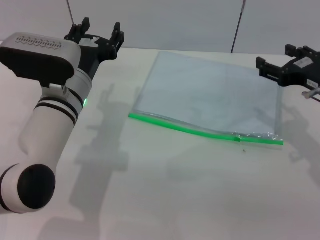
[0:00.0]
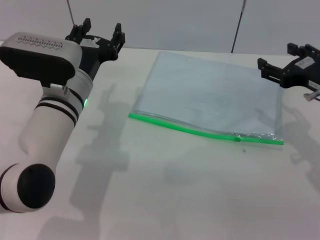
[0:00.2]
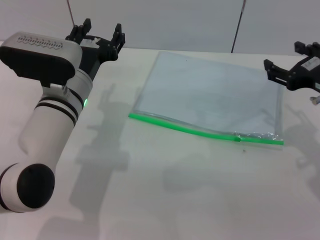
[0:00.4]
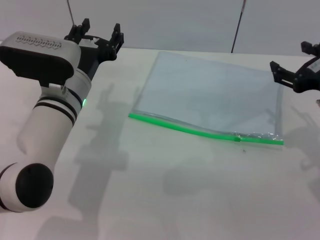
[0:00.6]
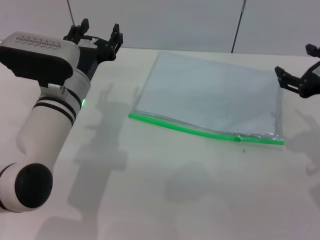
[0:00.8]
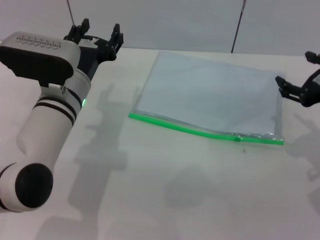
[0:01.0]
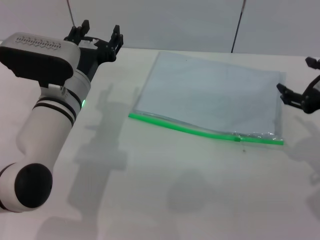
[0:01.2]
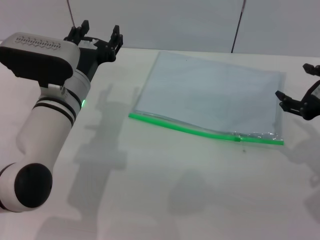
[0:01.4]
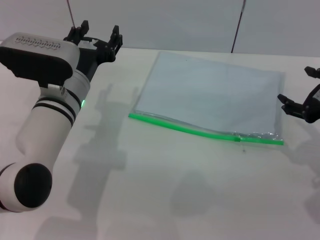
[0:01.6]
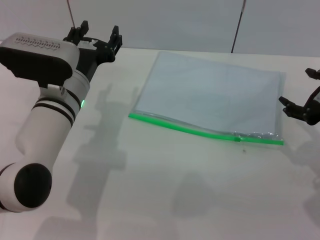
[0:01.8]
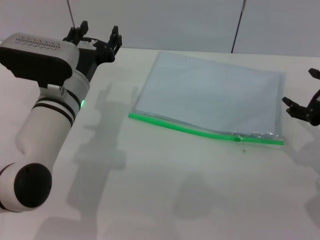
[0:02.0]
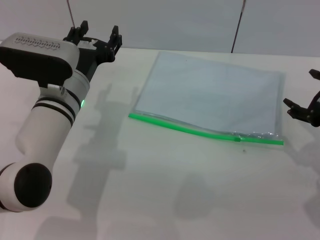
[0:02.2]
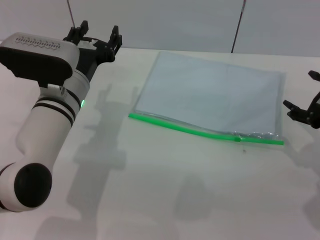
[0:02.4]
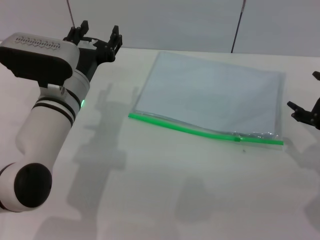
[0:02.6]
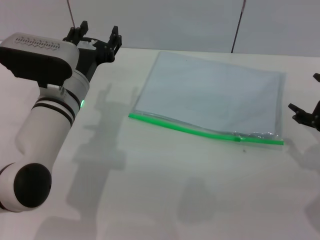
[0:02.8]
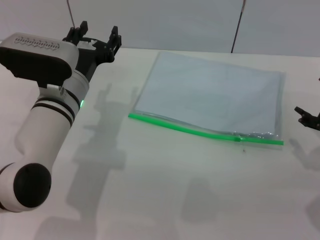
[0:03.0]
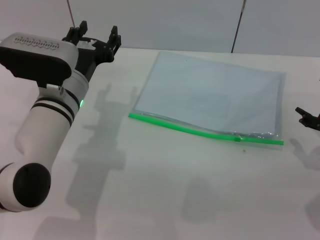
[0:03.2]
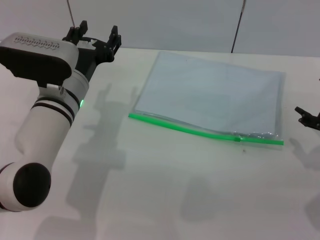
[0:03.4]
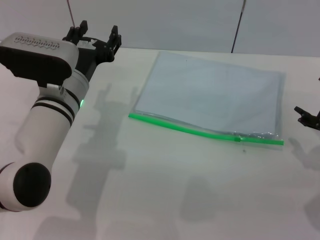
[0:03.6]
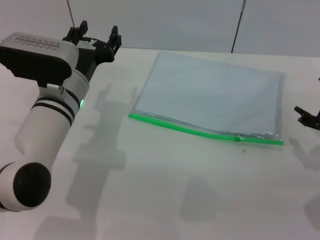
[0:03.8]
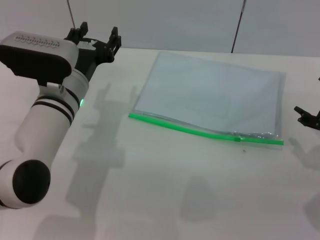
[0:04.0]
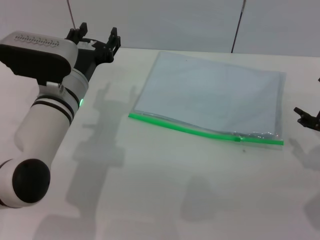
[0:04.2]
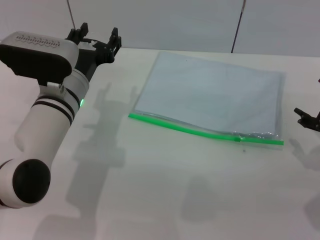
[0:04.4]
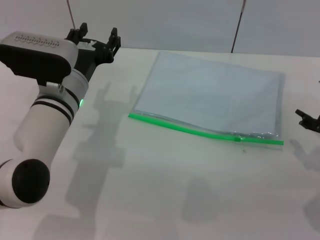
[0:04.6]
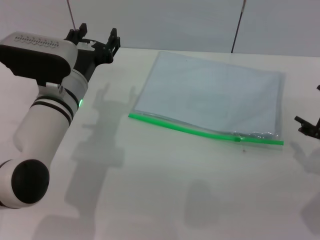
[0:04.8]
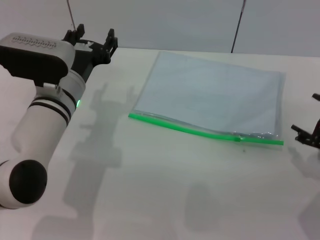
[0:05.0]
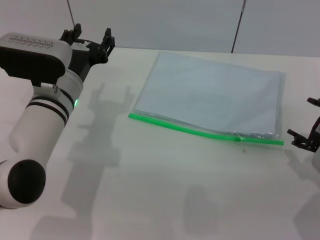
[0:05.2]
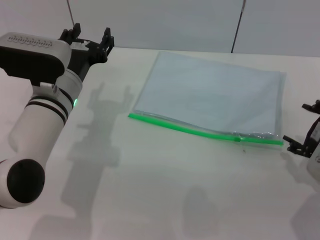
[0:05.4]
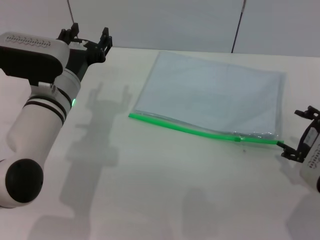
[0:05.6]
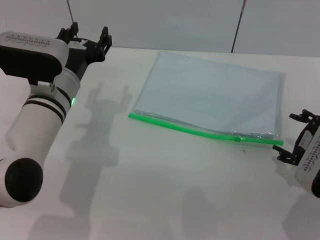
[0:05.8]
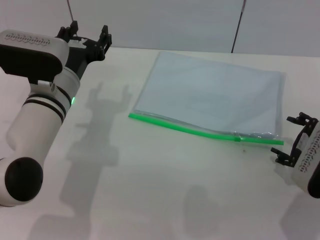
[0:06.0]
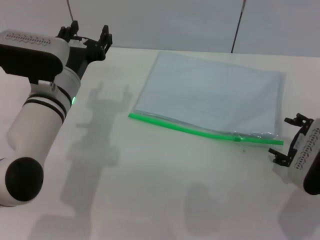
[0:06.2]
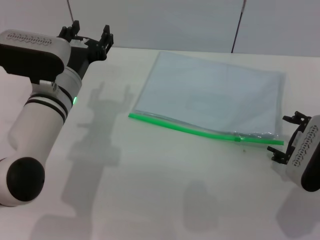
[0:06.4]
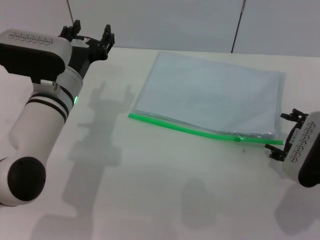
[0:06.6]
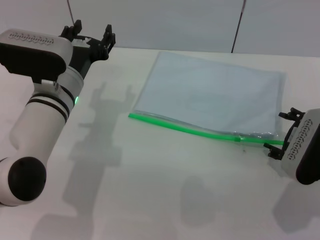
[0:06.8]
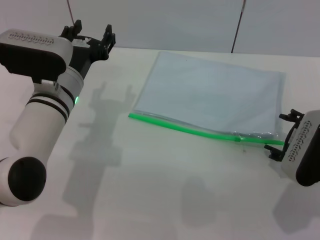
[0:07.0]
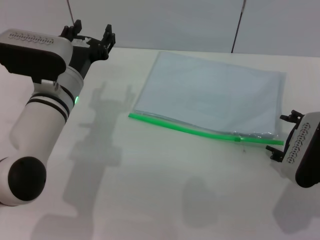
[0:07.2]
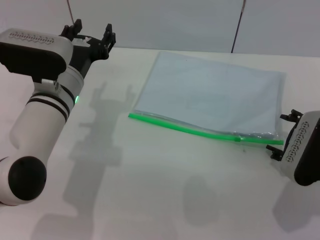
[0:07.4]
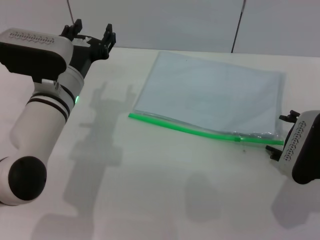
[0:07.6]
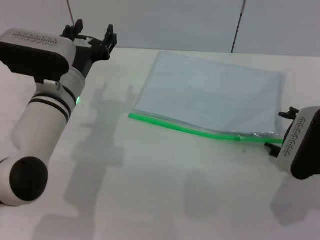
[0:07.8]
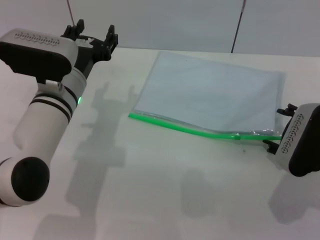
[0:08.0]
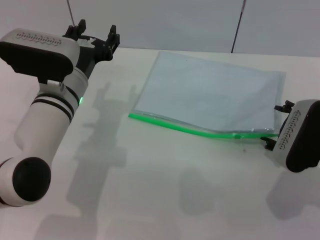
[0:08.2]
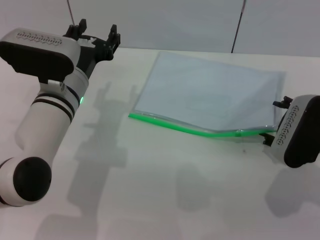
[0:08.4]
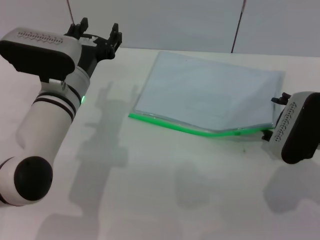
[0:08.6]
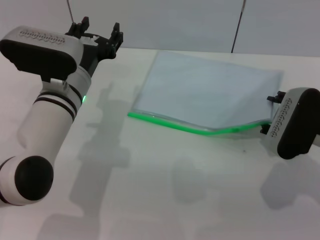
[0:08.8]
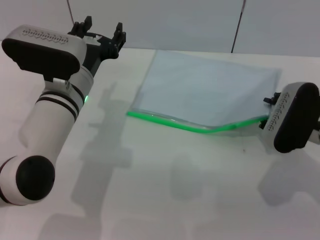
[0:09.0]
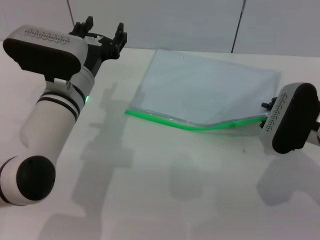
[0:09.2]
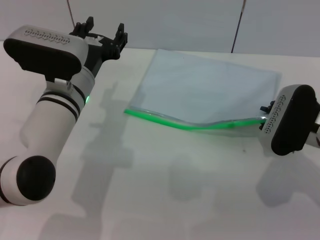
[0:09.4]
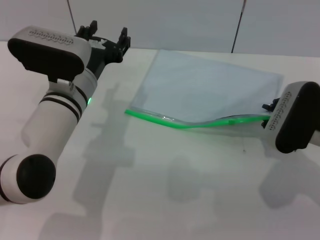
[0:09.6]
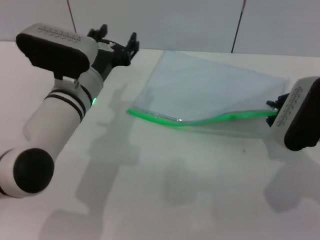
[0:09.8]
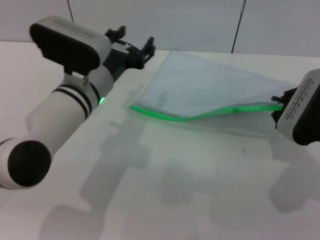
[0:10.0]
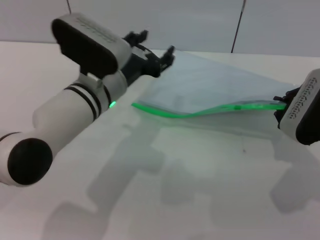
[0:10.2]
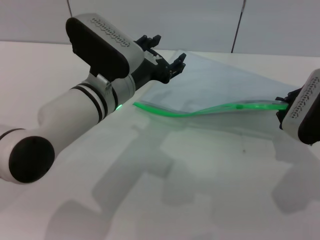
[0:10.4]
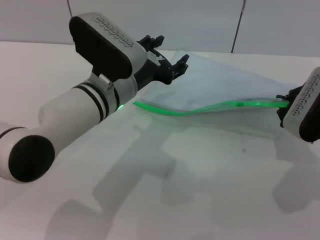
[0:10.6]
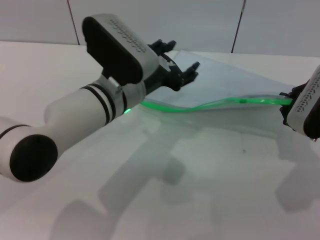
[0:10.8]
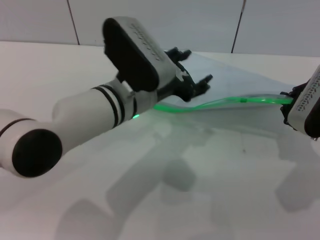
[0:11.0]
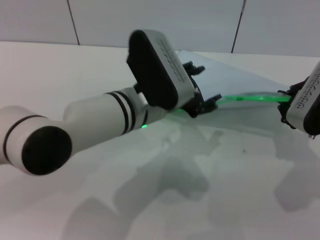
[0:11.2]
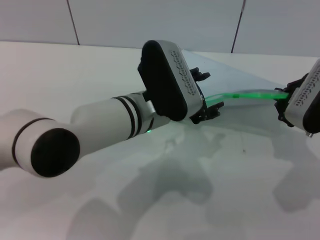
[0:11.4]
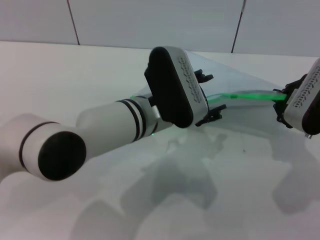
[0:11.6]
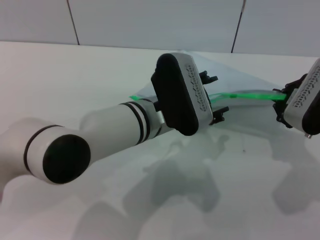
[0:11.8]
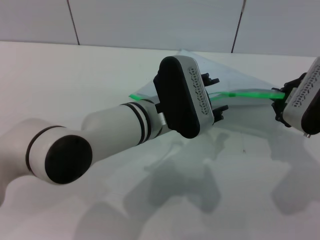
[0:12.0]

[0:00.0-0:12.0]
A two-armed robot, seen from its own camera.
Step, 0:00.0 to 0:11.4: Pick up the transparent plastic bag with the right gripper.
0:01.6 to 0:03.0: The grippers move only a little.
0:03.0 to 0:04.4: Neither gripper changes place.
0:04.4 to 0:06.0: The right gripper moves some 5 cm.
0:06.0 to 0:07.6: The grippers make only small movements.
0:07.6 to 0:09.0: The grippers stay close to where they were, moving slightly.
0:09.0 to 0:10.4: The right gripper closes up.
0:10.4 to 0:12.0: The left gripper is displaced to the right by about 5 cm.

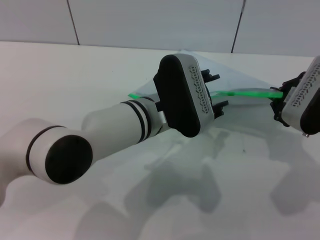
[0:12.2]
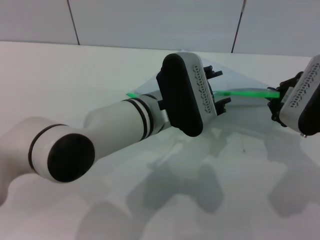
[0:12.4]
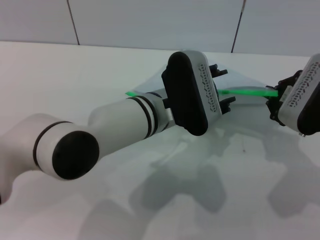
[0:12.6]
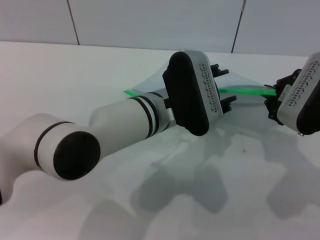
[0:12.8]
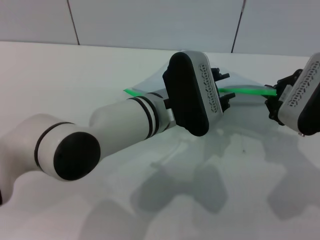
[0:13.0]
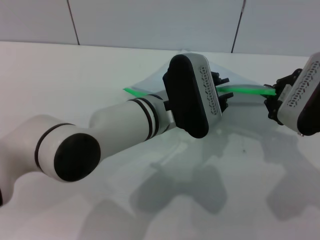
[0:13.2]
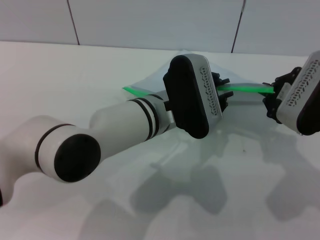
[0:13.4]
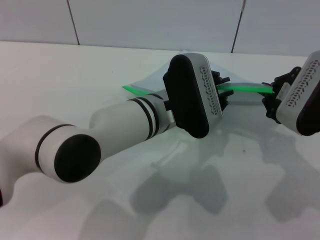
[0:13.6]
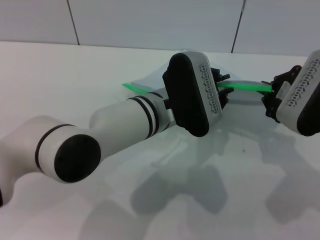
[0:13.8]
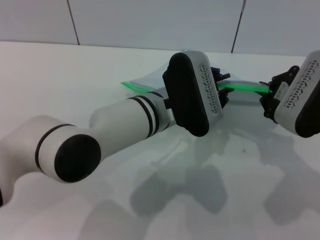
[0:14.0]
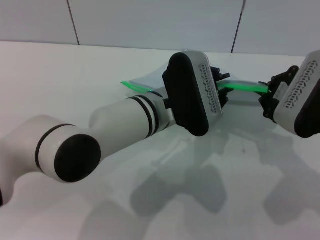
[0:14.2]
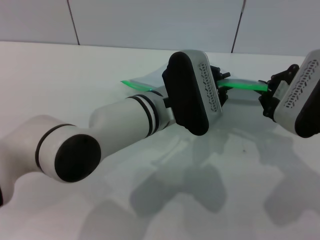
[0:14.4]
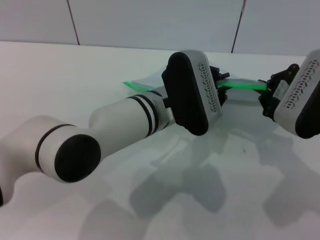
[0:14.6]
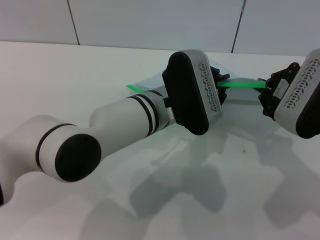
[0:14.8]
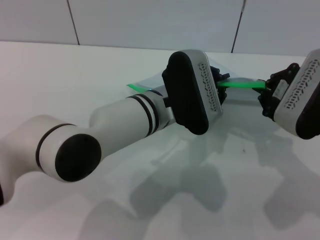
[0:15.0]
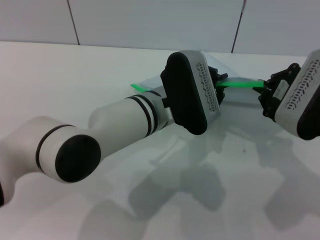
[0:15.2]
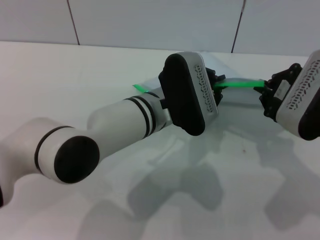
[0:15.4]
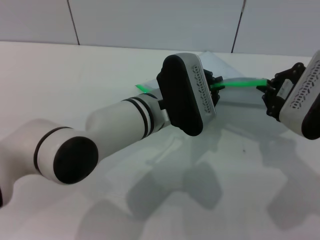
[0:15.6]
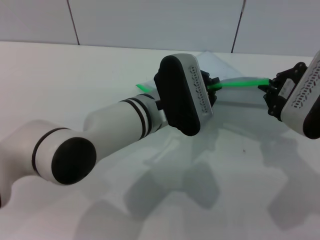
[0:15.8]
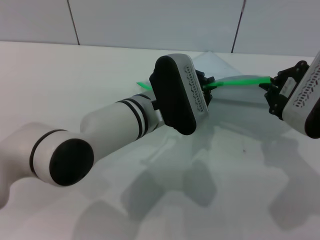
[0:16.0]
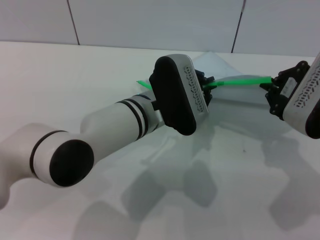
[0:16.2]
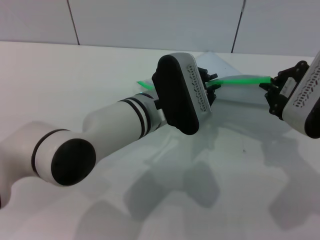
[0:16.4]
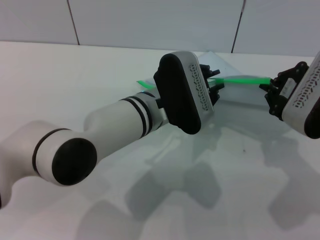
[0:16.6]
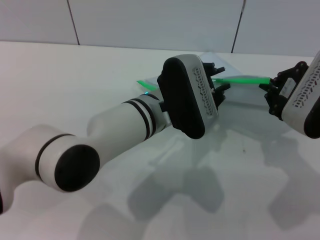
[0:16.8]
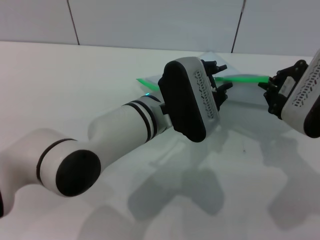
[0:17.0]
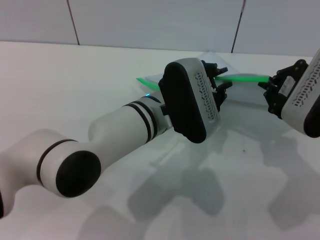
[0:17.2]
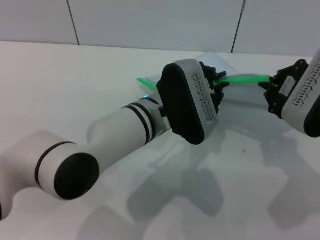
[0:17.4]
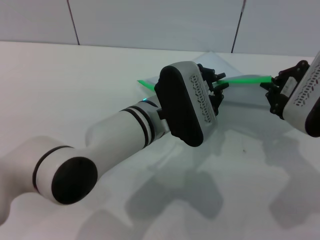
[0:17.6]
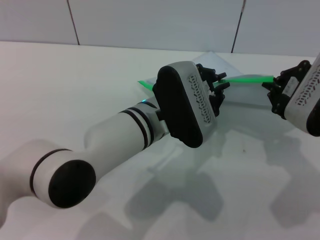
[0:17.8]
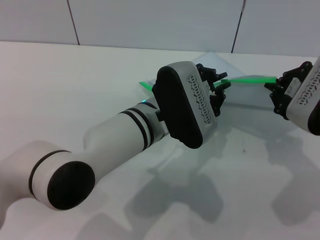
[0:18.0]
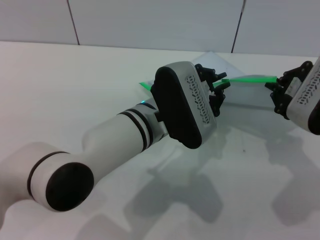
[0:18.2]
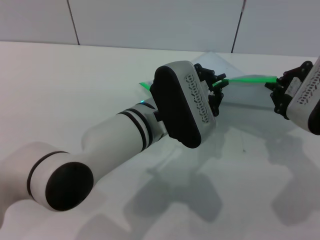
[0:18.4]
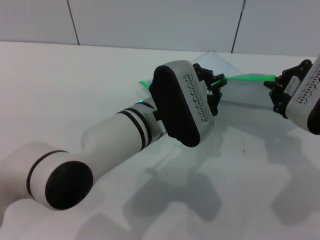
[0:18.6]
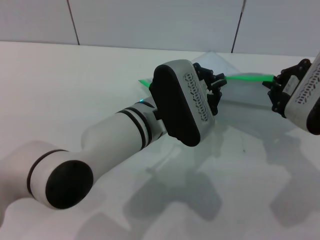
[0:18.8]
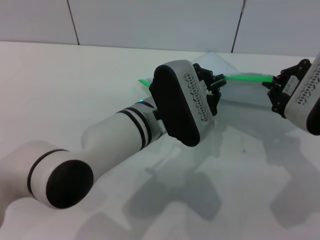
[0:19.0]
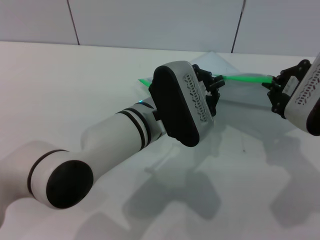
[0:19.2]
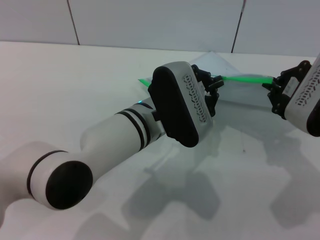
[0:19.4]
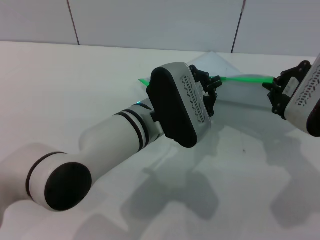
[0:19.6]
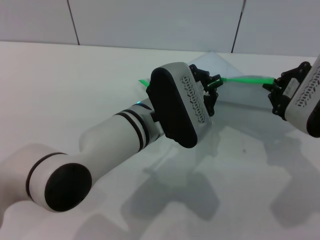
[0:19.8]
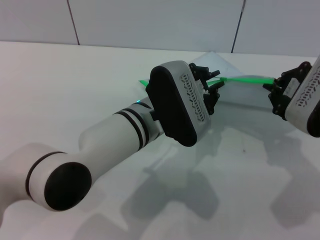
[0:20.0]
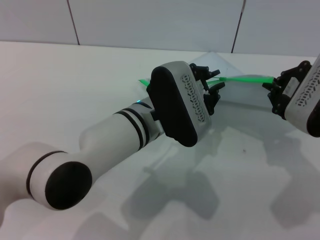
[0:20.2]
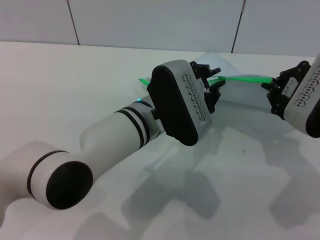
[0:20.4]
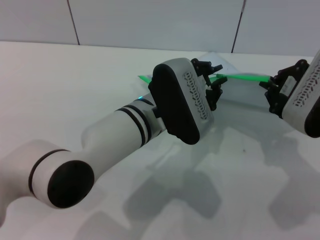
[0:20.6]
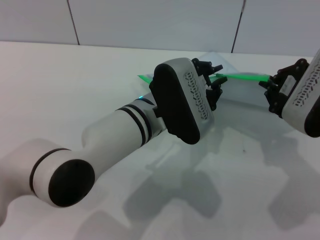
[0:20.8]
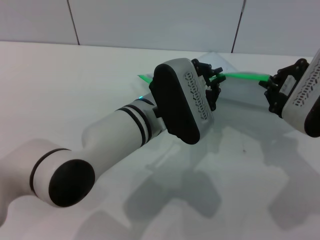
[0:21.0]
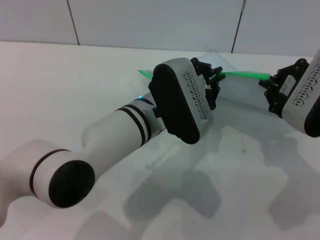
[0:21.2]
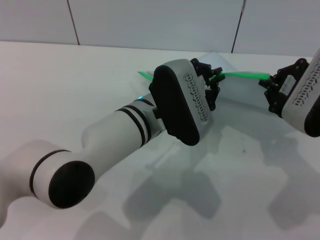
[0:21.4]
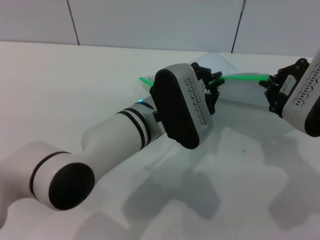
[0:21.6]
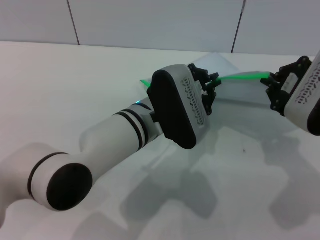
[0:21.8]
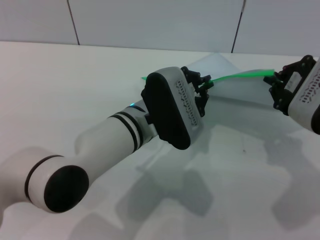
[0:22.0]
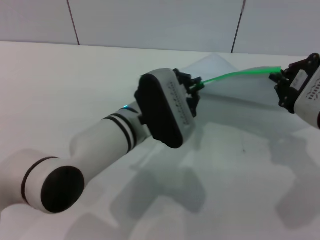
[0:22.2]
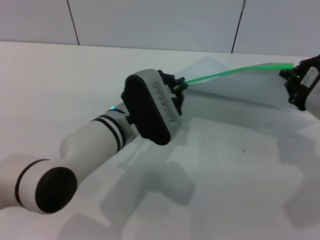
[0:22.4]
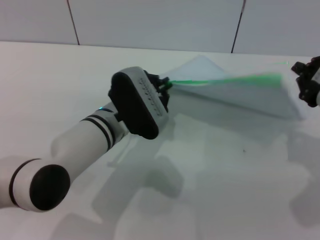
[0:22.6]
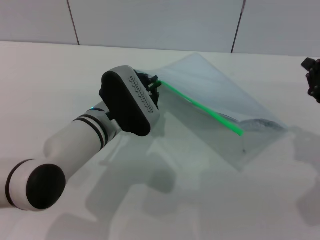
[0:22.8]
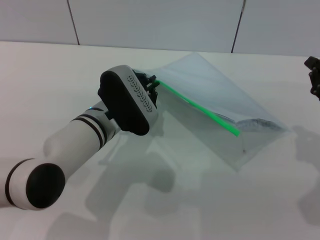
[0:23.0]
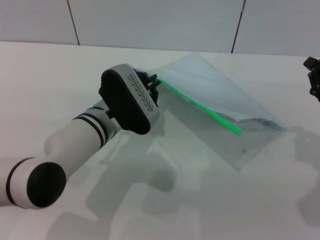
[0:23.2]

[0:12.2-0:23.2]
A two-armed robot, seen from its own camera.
Step, 0:12.2 to 0:22.4: Pulling up the zipper on the transparent plastic bag with the left gripper to close it.
0:12.2 to 0:13.8: The left gripper closes up.
0:13.8 to 0:15.4: Neither gripper changes place.
0:15.4 to 0:17.0: Neither gripper changes place.
0:17.0 to 0:18.4: The grippers stay close to where they were, moving slightly.
0:18.4 to 0:21.6: Both grippers stay about where they are.
0:21.6 to 0:23.2: The left gripper moves to the left, about 5 cm.
